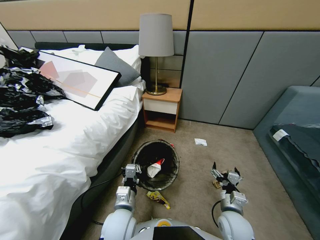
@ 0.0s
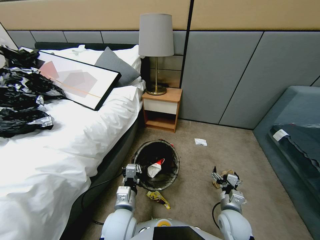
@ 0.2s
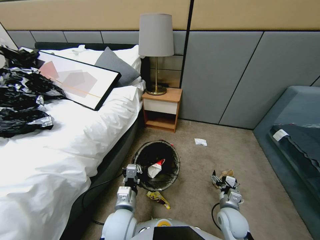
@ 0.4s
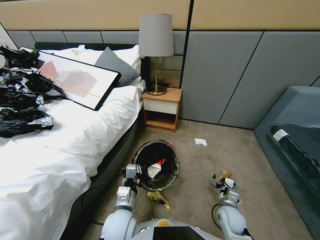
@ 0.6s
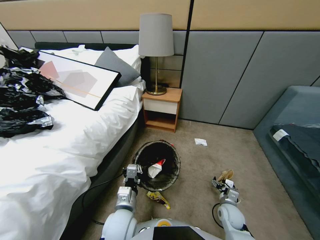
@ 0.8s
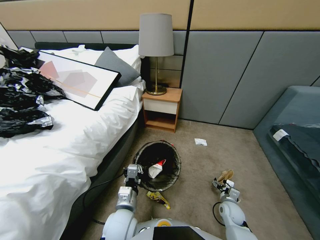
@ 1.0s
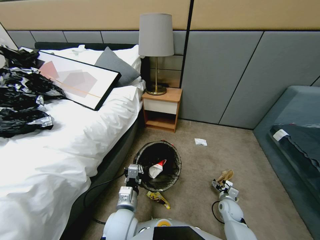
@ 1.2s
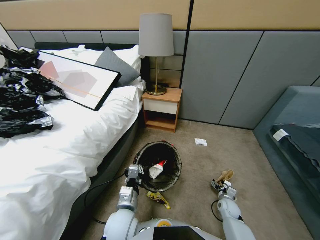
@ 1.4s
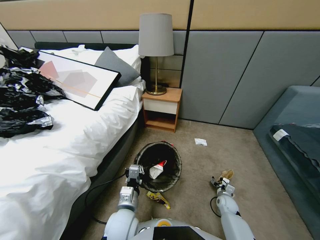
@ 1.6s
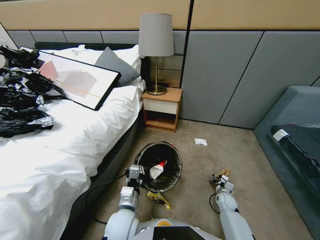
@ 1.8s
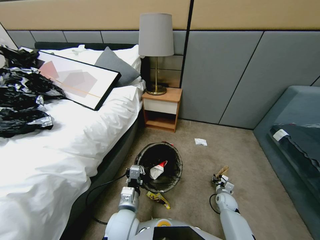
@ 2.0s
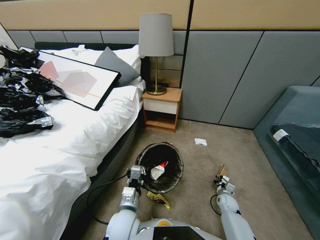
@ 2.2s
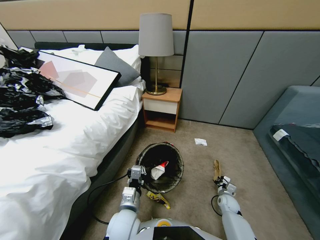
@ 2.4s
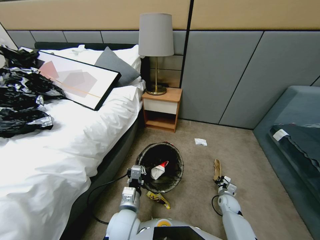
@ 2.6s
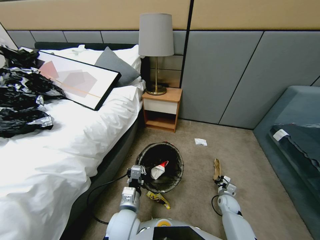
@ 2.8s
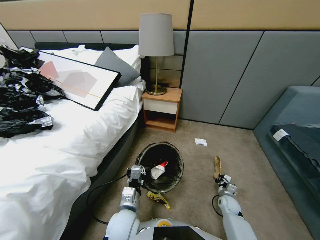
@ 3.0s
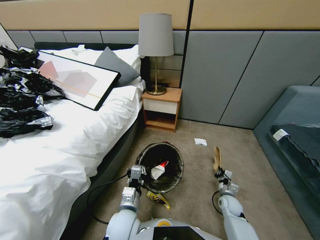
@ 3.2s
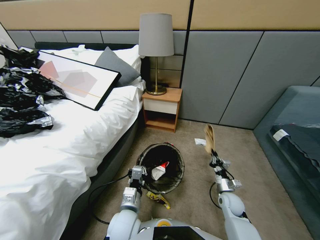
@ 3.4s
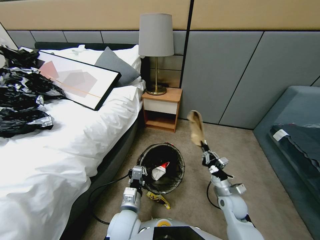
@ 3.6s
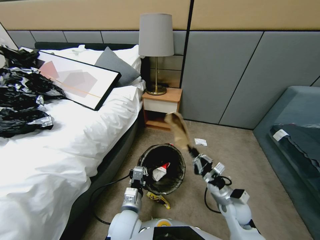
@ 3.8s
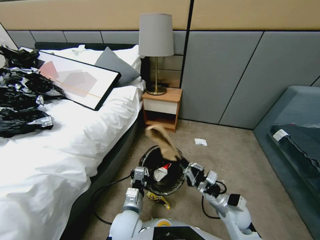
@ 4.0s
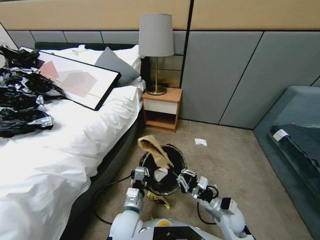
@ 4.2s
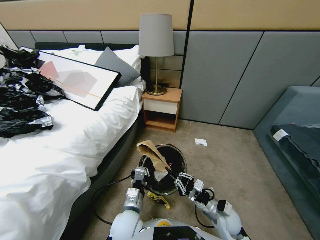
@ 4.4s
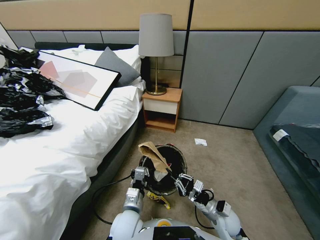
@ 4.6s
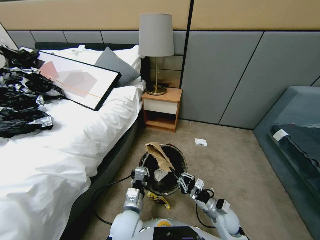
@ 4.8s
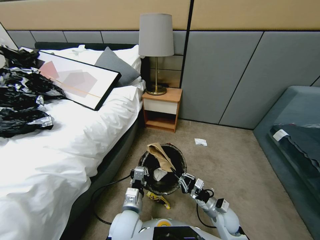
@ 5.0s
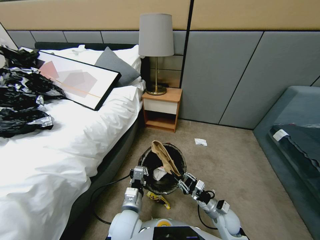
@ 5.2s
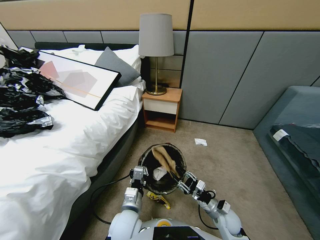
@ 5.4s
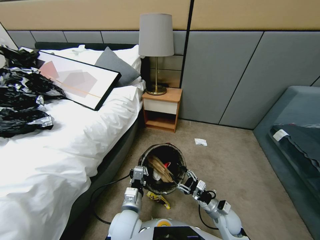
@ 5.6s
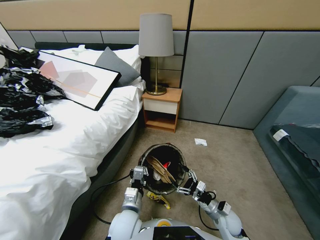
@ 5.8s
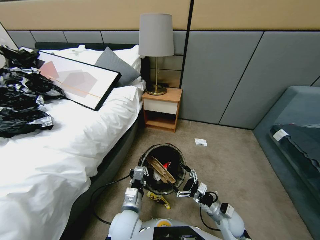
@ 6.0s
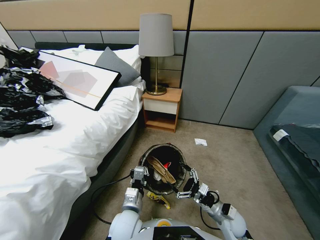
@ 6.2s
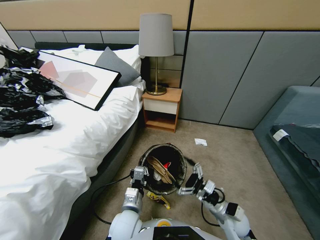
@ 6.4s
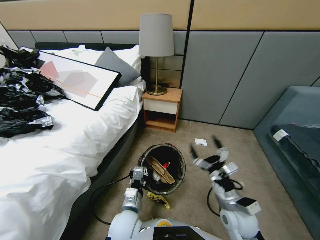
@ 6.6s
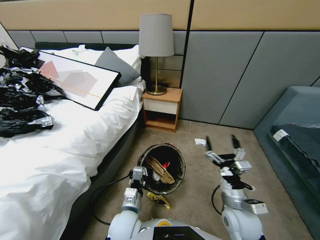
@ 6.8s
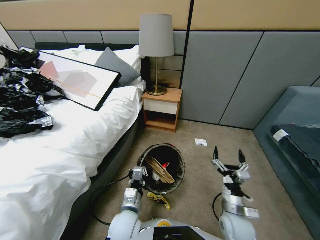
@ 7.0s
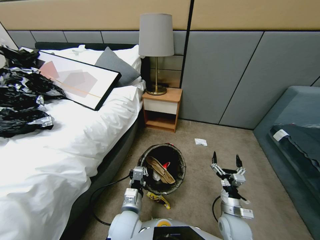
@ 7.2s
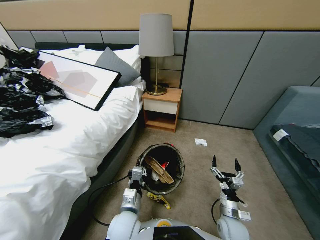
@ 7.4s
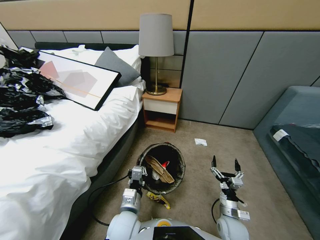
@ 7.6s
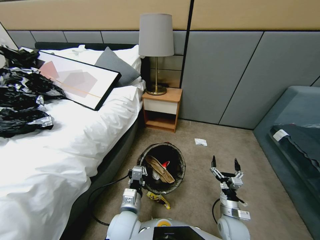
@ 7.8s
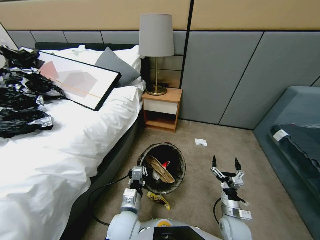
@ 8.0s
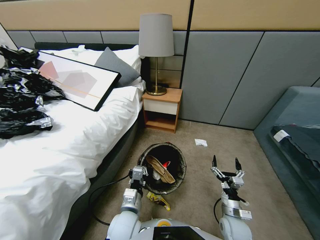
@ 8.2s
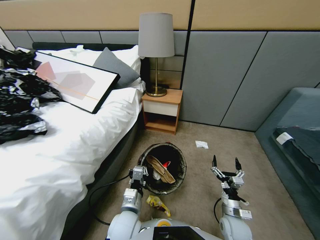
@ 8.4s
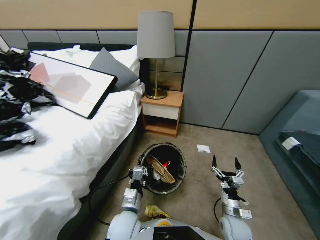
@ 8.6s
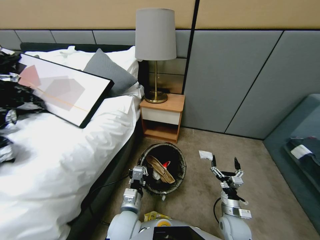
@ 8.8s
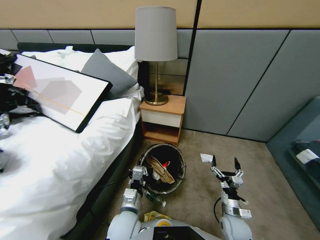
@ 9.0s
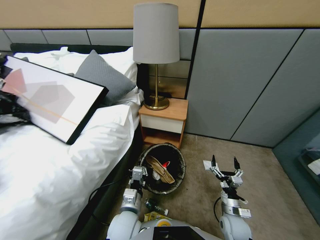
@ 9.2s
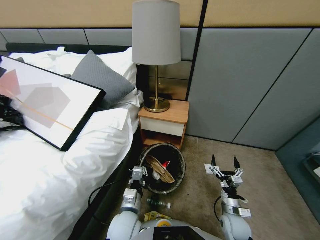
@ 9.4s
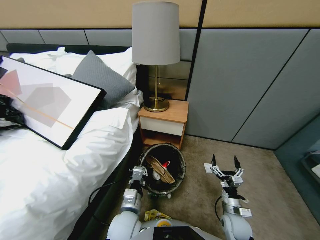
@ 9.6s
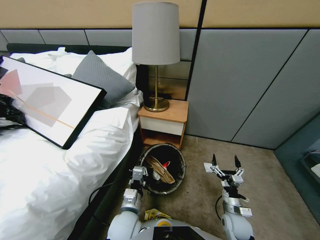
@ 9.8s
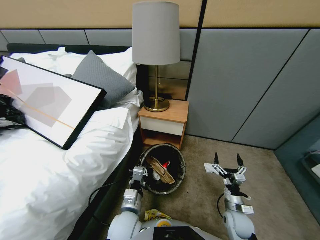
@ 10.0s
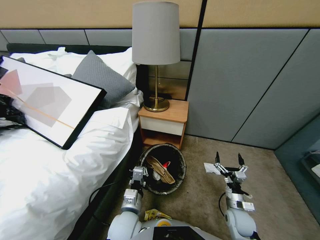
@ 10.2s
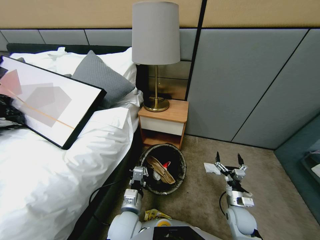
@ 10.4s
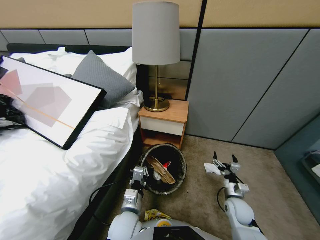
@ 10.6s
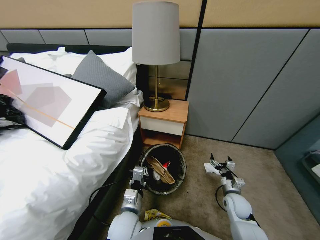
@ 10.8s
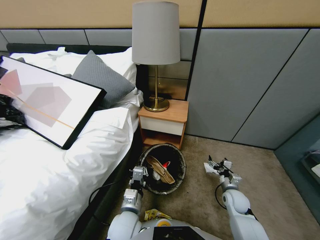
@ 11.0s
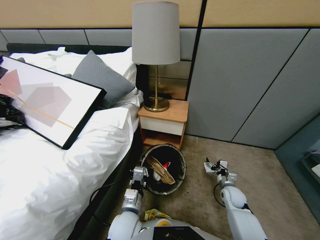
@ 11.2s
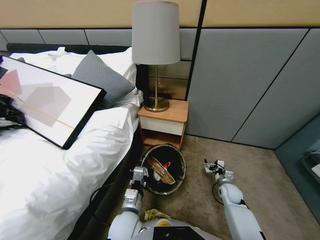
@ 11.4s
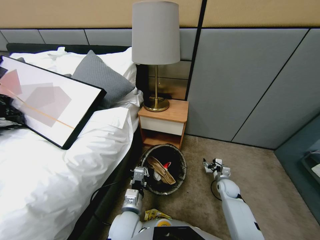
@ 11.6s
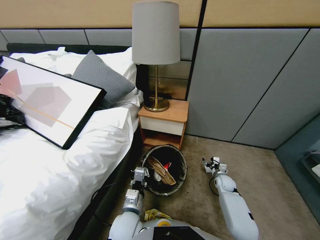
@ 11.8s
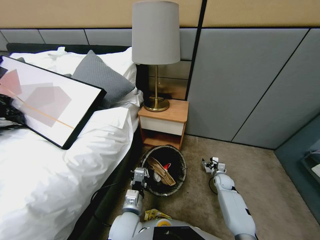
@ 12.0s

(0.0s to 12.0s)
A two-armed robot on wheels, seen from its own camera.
Task of the whole recording: Pick up the trash bin, then pick up the garbage from the floor and place it into the trash bin.
0.0s - 1.6s: The right gripper goes some 25 cm downward, forward and to the right.
1.6s - 3.0s: The right gripper closes up.
3.0s - 4.4s: The right gripper is displaced upward, to the left and backward by approximately 20 cm.
4.4s - 6.0s: The right gripper opens.
6.0s - 7.6s: The right gripper travels upward and back again, approximately 10 cm each way.
9.0s - 10.4s: The right gripper ends up approximately 5 cm from where it was.
10.4s - 12.0s: The right gripper shifts some 20 cm forward and downward.

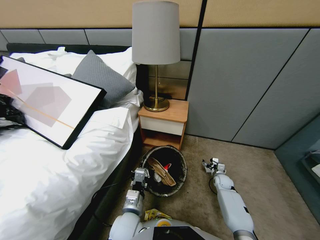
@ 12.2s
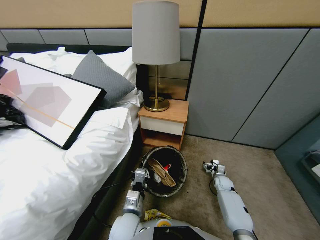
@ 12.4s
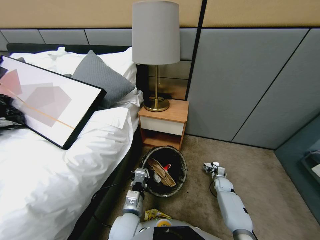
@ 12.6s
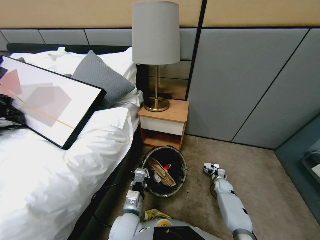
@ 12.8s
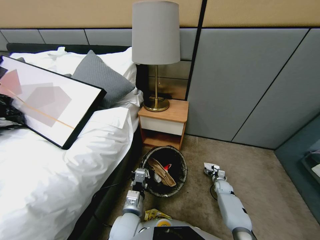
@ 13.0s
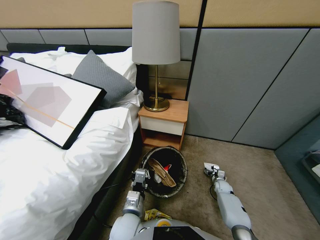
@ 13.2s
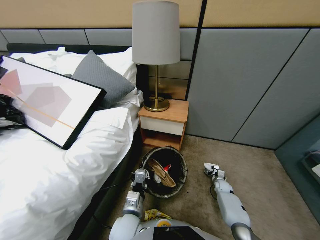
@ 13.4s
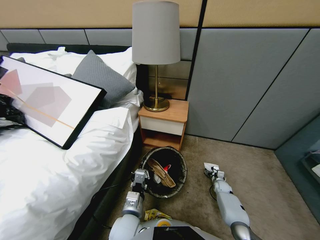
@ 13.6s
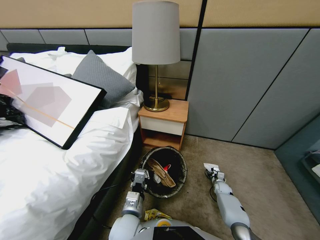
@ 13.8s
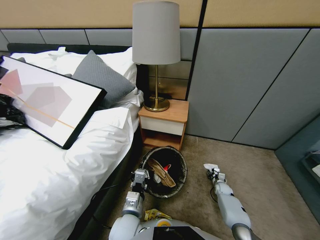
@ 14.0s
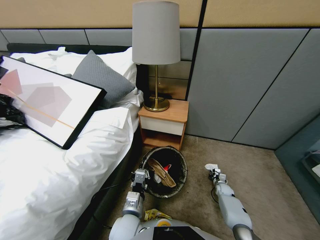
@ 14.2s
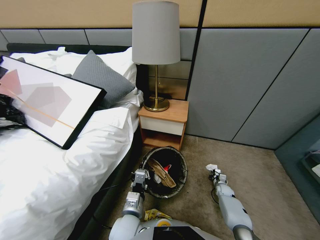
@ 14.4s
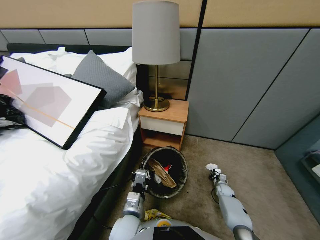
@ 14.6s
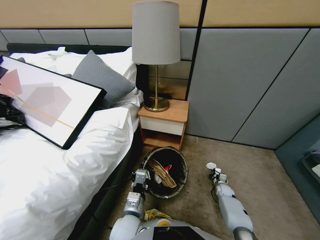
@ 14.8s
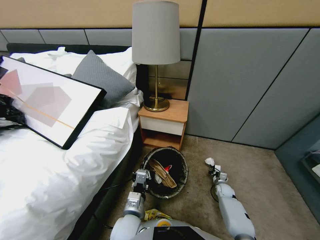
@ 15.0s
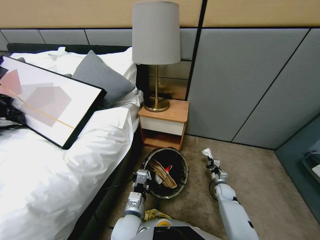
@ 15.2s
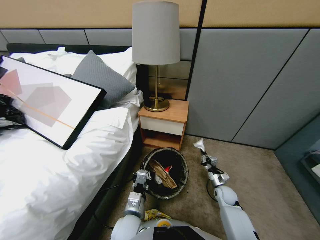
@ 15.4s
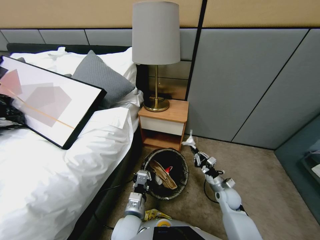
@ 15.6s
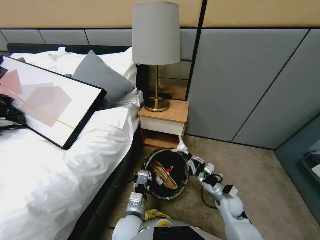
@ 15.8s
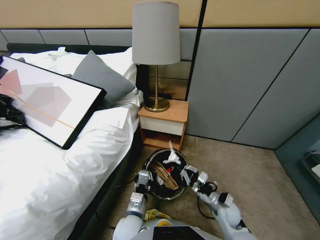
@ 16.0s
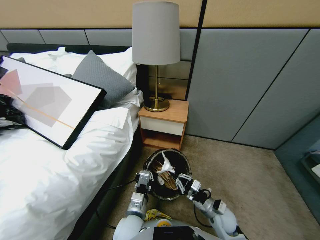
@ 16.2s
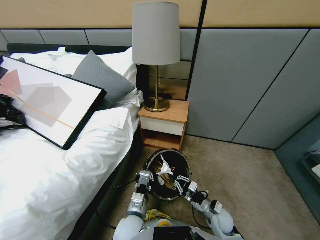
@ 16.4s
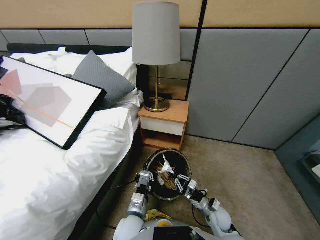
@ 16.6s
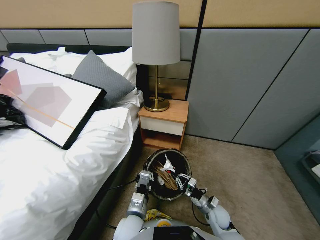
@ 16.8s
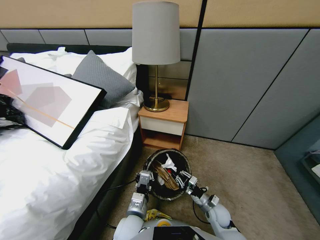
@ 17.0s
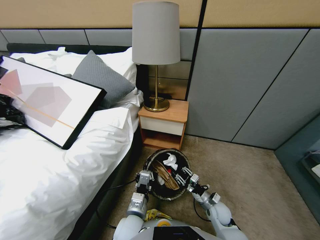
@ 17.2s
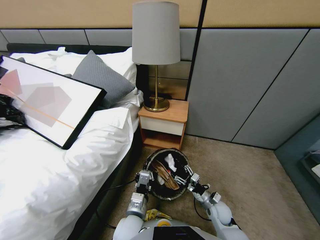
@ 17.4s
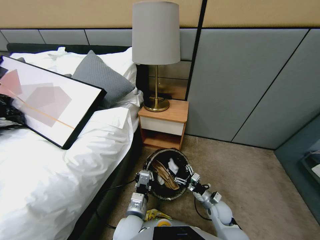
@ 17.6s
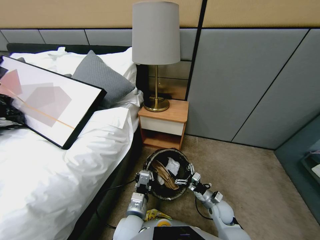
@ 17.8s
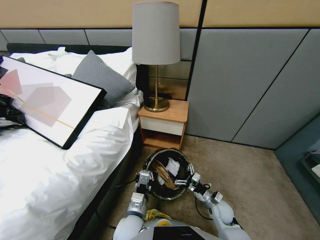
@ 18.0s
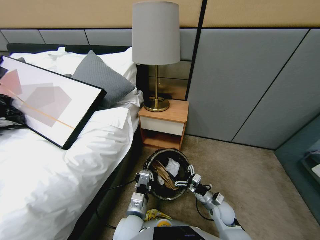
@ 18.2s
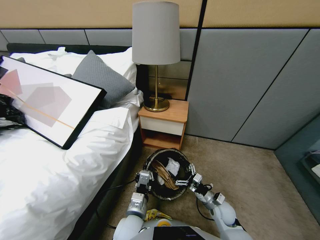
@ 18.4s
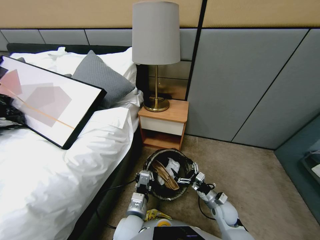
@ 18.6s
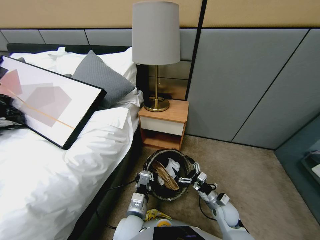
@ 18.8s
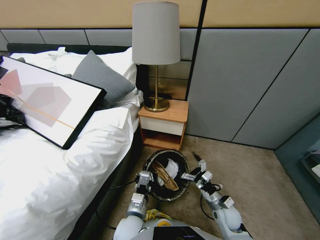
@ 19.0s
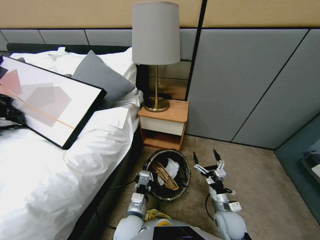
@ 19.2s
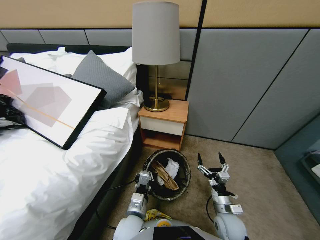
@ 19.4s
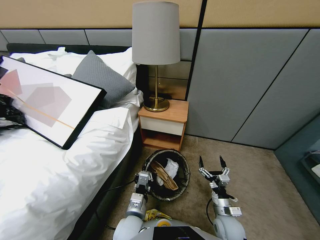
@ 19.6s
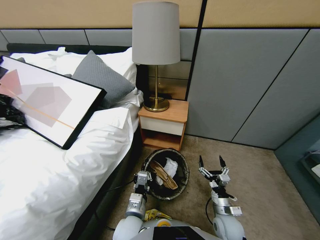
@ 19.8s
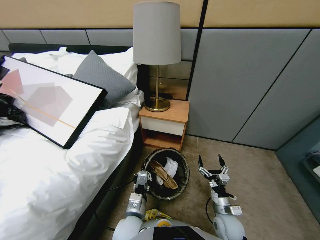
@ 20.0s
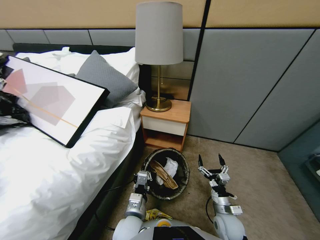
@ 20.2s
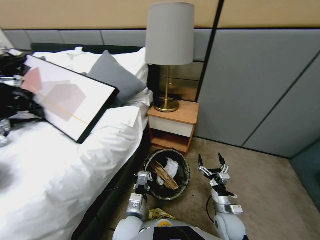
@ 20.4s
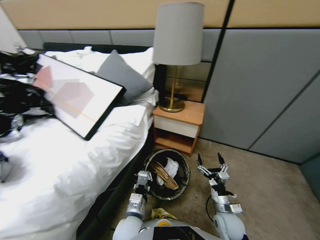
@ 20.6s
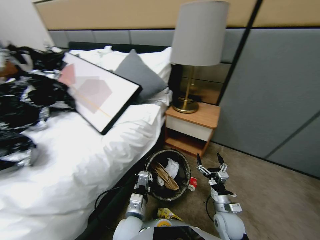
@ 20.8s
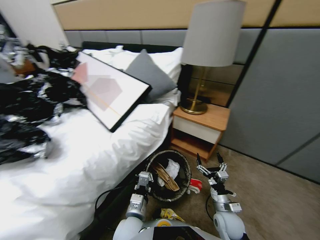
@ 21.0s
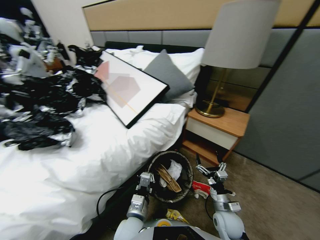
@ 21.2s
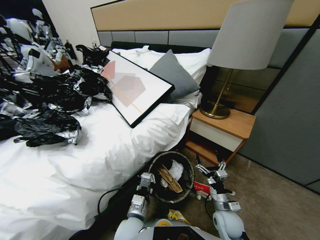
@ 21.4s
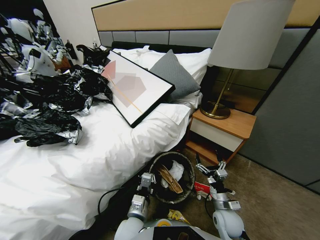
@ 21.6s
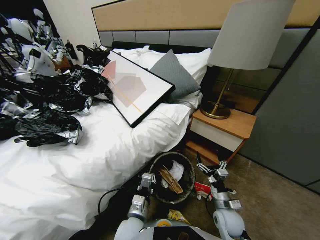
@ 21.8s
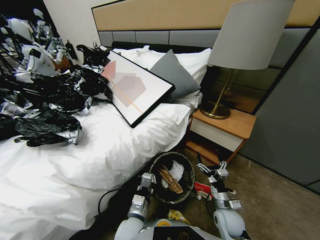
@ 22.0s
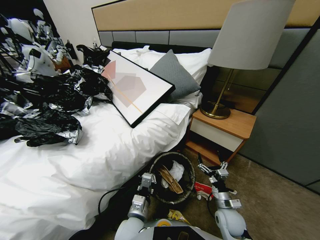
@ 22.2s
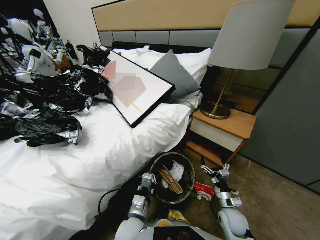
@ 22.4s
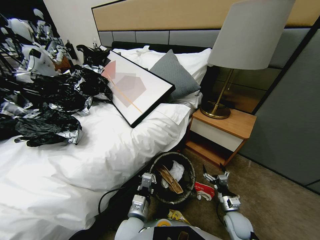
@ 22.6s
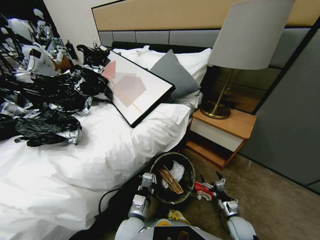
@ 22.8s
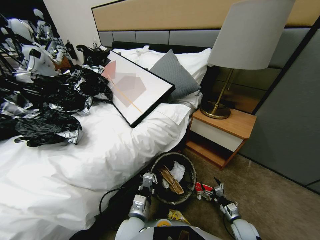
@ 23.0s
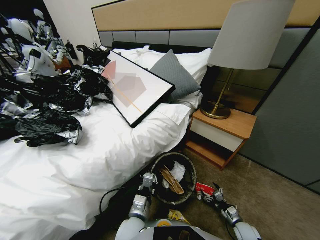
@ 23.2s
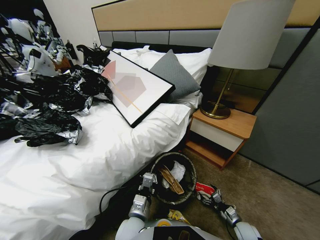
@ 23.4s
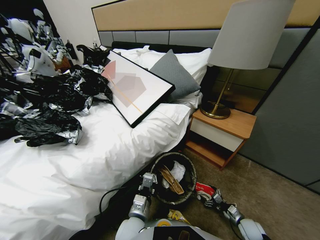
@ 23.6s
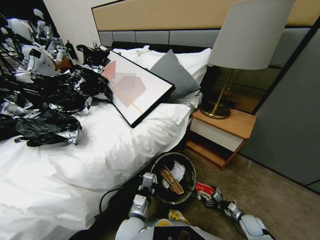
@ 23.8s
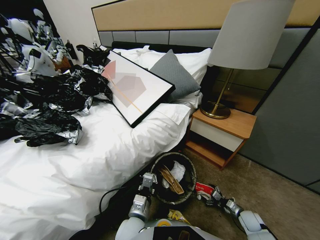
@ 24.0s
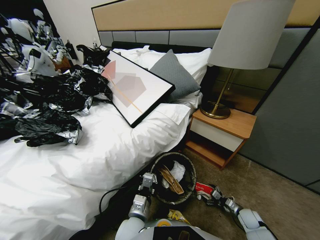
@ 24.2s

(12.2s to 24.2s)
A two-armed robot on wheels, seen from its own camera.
Task of the whole recording: Pick up the trash bin, then pick up the garbage from the floor and place it into the trash bin.
12.2s - 13.8s: The right gripper moves downward, some 5 cm, and closes up.
13.8s - 15.2s: The right gripper travels upward, to the left and backward by roughly 15 cm, and closes.
15.2s - 16.6s: The right gripper moves to the left and backward, about 15 cm, and goes upward and returns, about 10 cm each way.
16.6s - 18.2s: The right gripper opens up.
18.2s - 19.8s: The right gripper goes approximately 5 cm backward.
21.2s - 22.6s: The right gripper moves to the right and downward, approximately 10 cm.
22.6s - 24.2s: The right gripper shifts roughly 15 cm to the right and downward.
